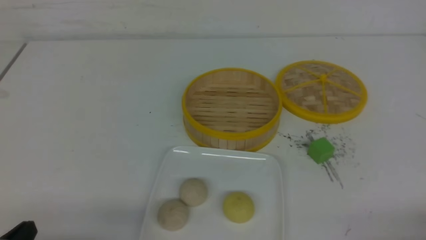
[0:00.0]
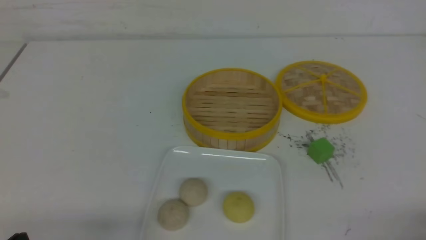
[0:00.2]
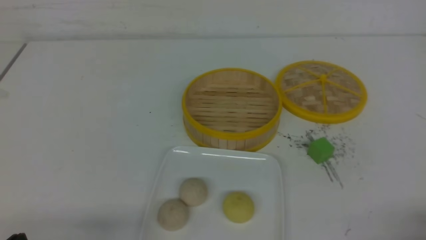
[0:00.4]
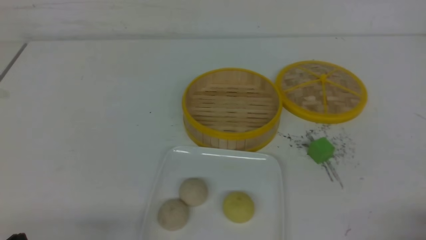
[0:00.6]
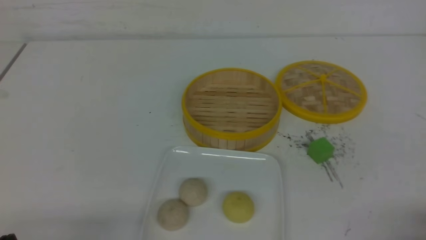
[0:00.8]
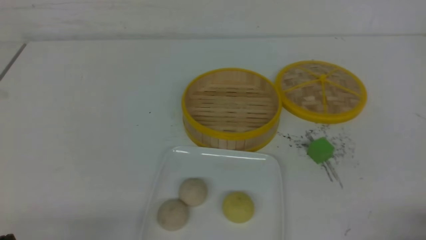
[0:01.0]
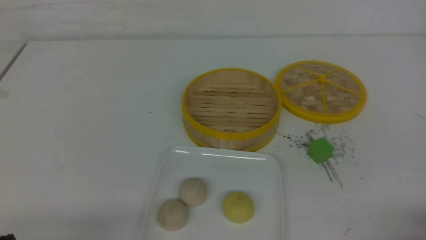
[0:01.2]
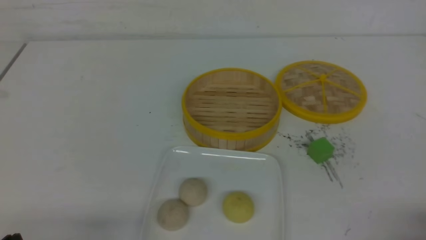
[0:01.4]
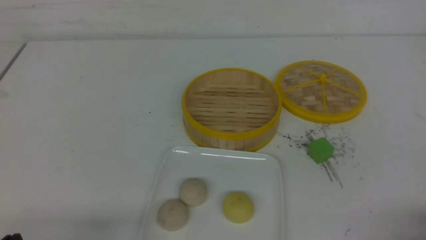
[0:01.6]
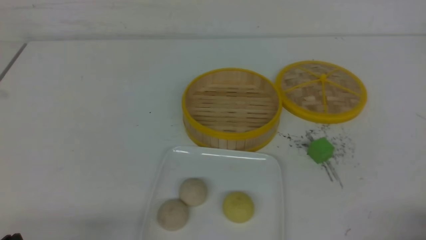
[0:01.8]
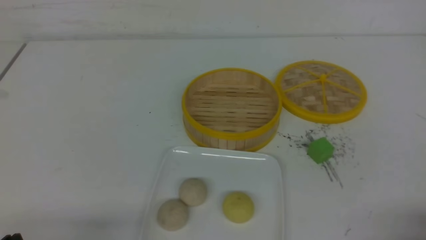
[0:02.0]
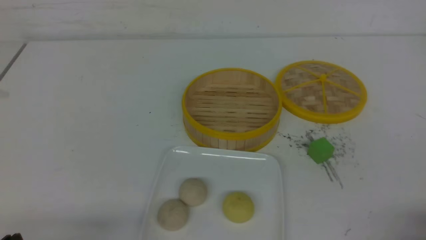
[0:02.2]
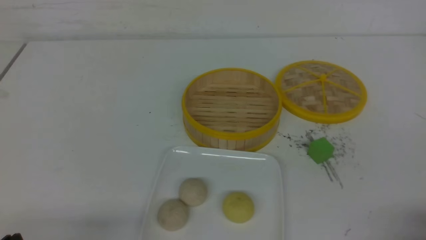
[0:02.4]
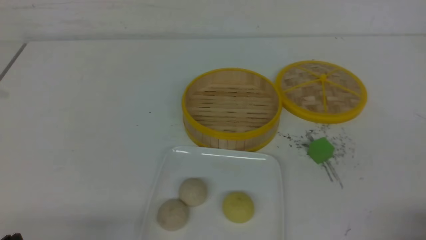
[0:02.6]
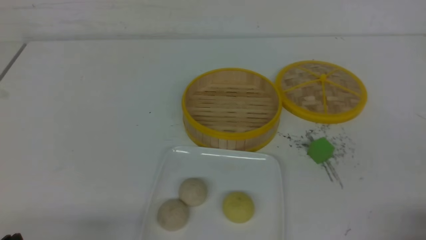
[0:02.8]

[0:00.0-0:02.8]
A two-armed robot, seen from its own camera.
0:01.4 to 0:02.8: Both grippers stay about where they are.
